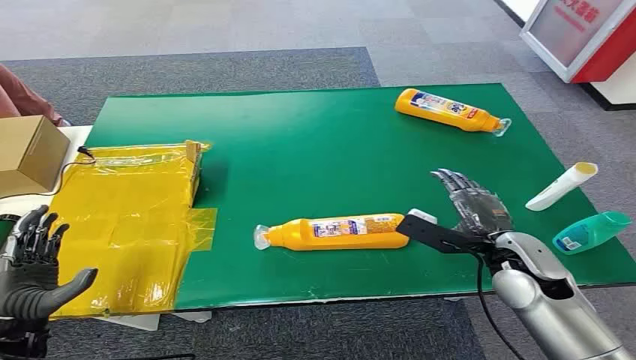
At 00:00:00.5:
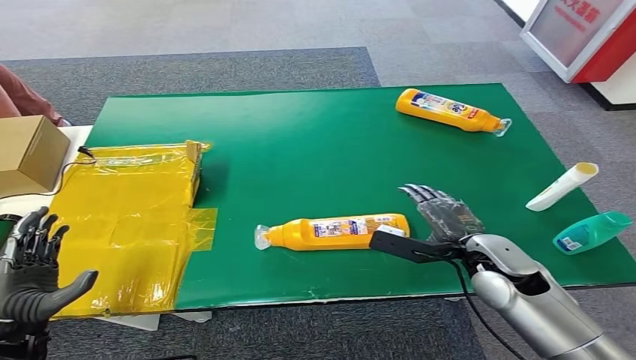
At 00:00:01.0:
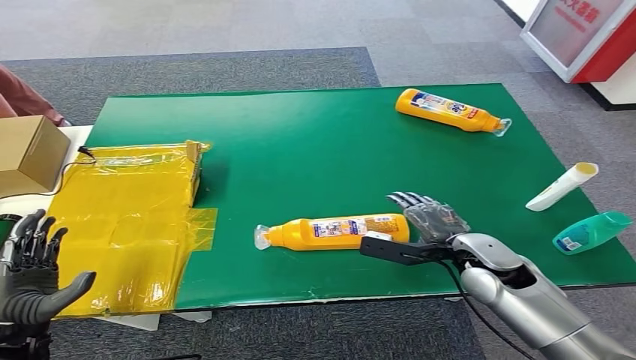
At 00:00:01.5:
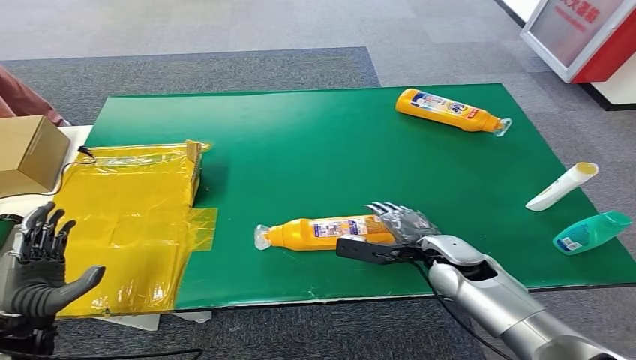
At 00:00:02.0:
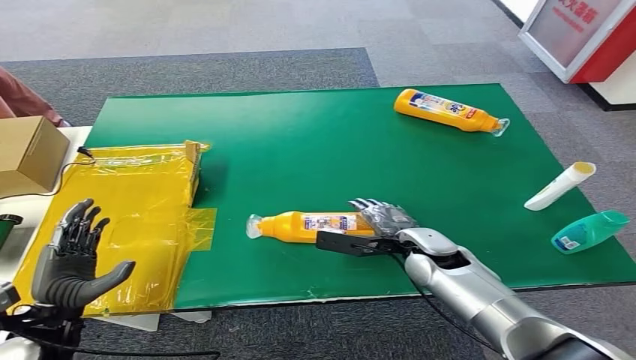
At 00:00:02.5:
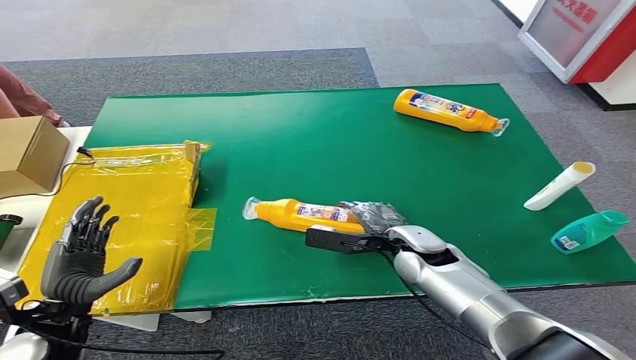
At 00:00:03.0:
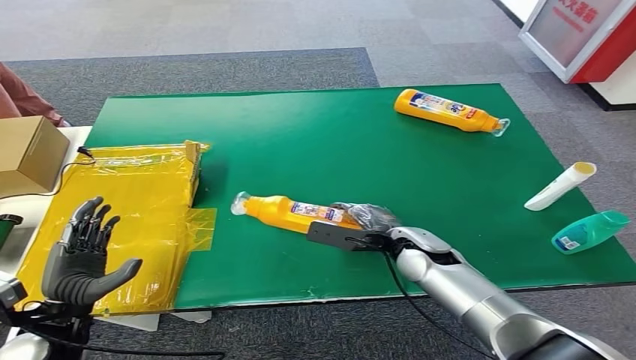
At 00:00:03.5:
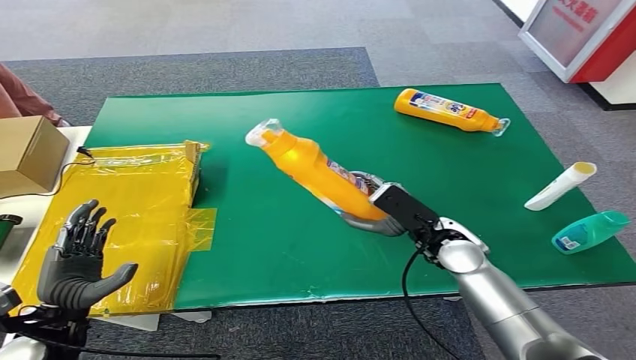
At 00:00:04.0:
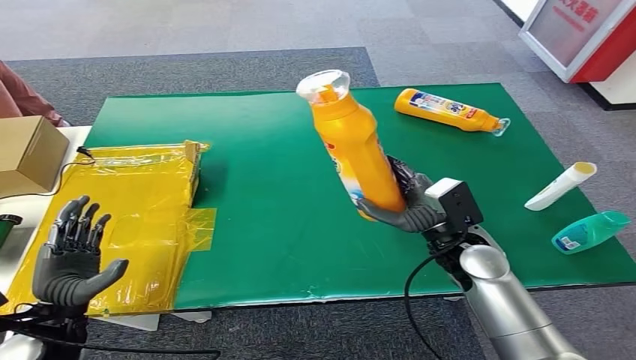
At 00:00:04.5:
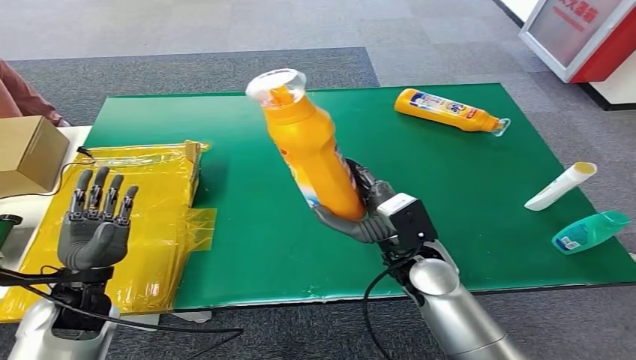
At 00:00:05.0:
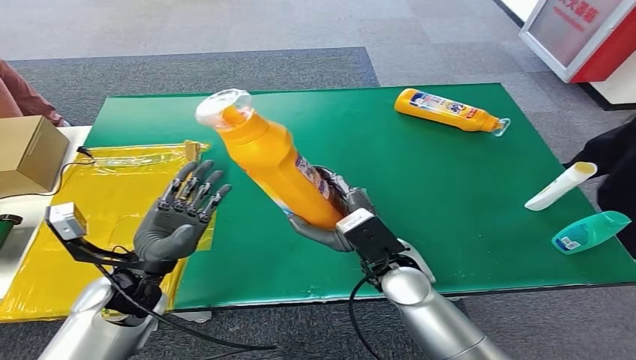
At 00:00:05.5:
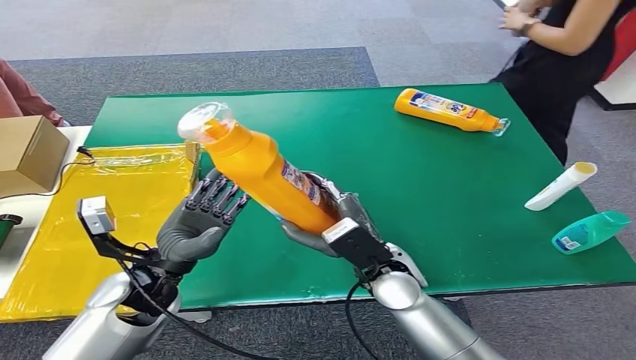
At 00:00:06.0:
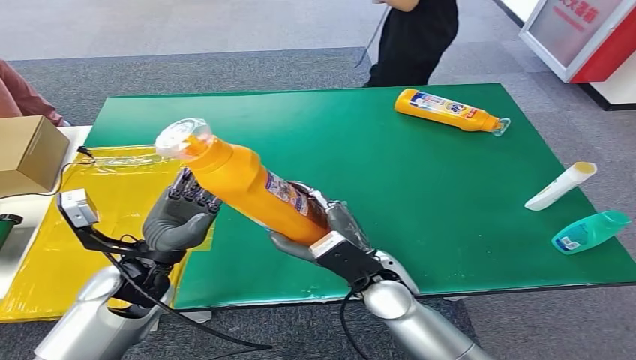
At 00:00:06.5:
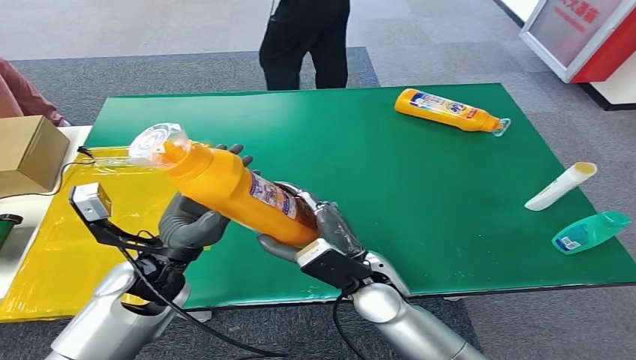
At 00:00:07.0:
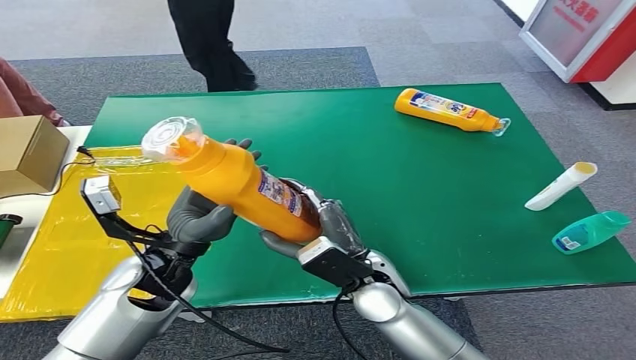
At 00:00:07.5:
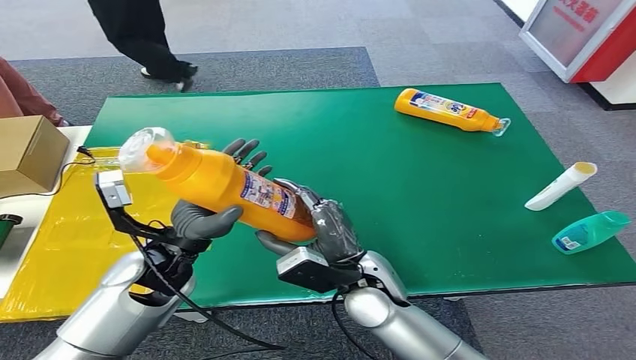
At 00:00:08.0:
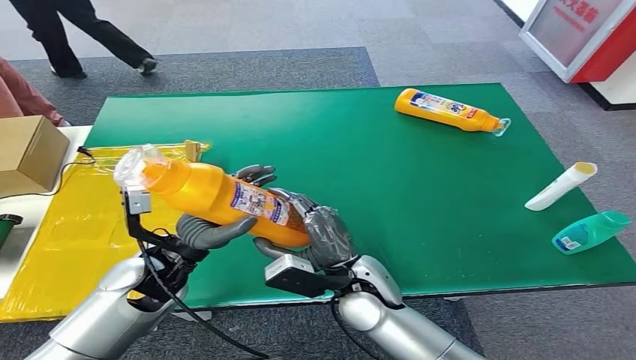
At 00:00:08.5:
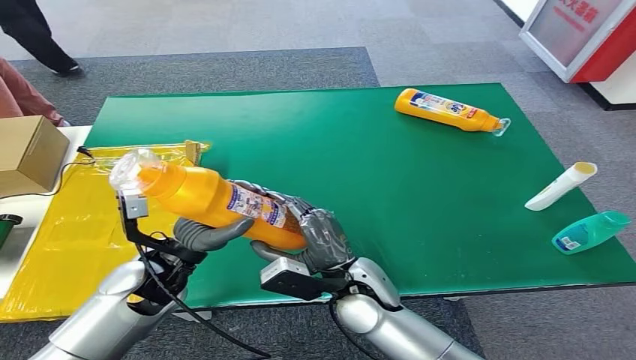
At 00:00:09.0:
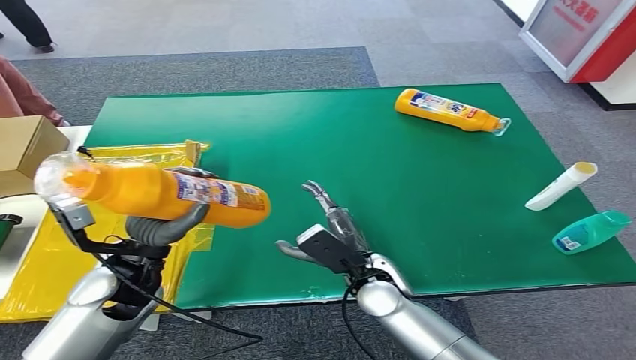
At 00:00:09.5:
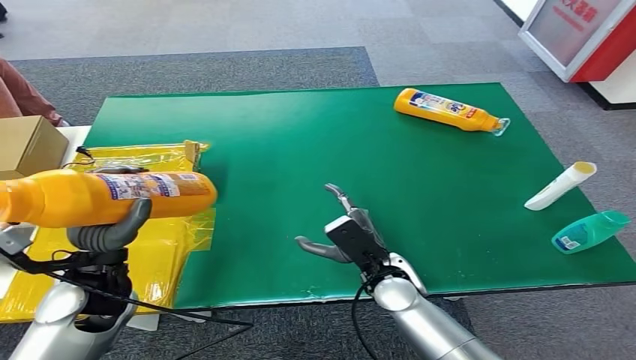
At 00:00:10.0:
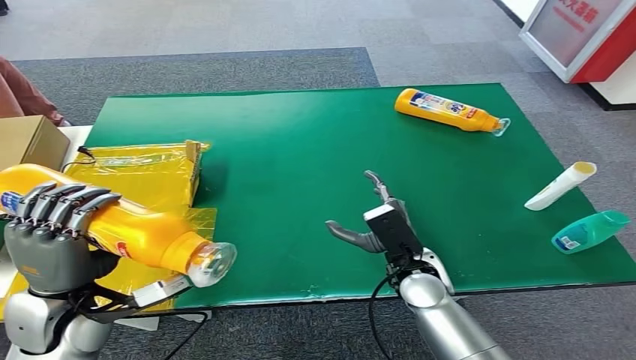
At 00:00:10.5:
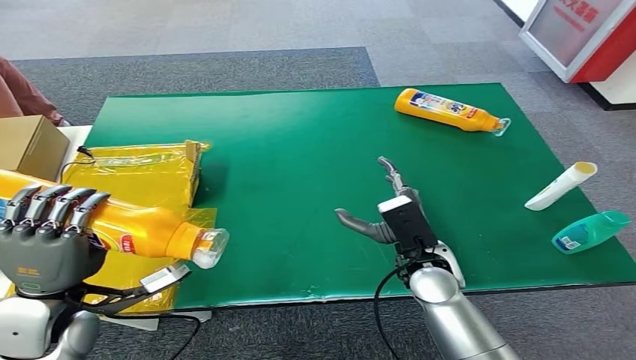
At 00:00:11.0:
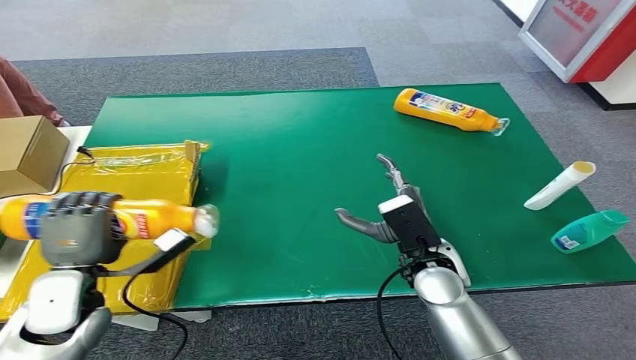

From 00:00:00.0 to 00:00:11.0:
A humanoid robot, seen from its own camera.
Step, from 00:00:00.0 to 00:00:03.5: Pick up the bottle from the table.

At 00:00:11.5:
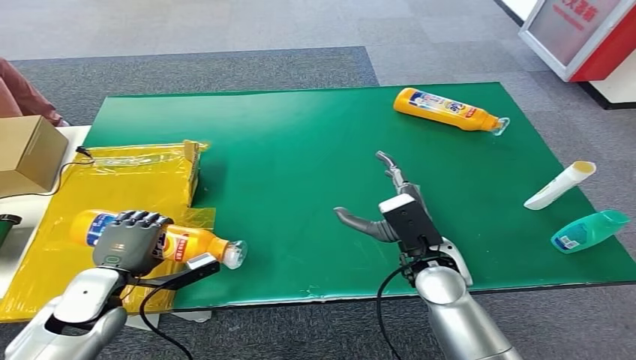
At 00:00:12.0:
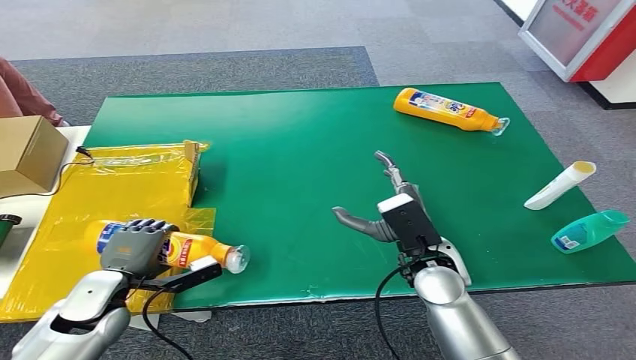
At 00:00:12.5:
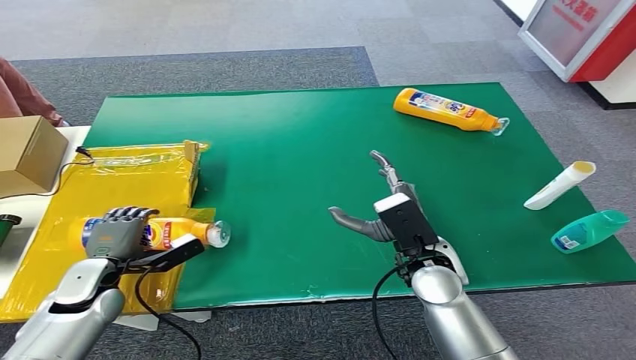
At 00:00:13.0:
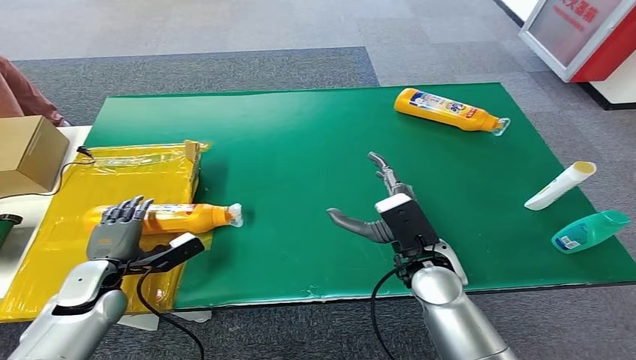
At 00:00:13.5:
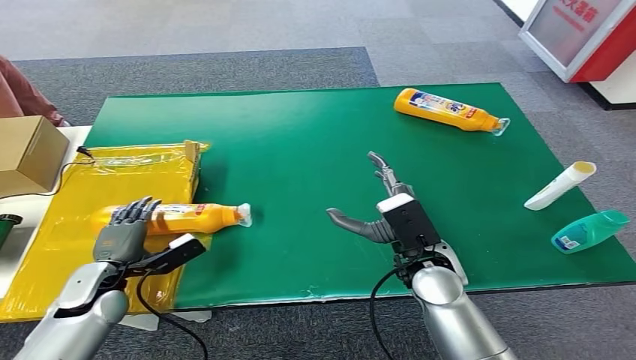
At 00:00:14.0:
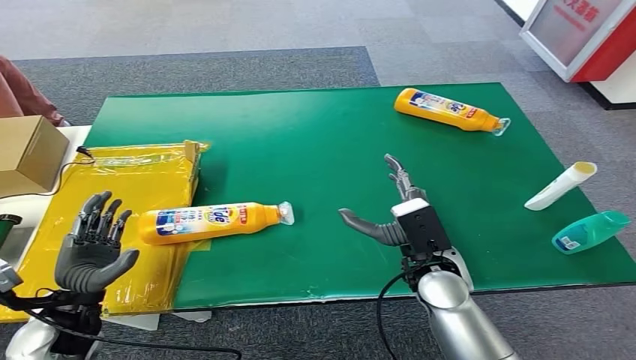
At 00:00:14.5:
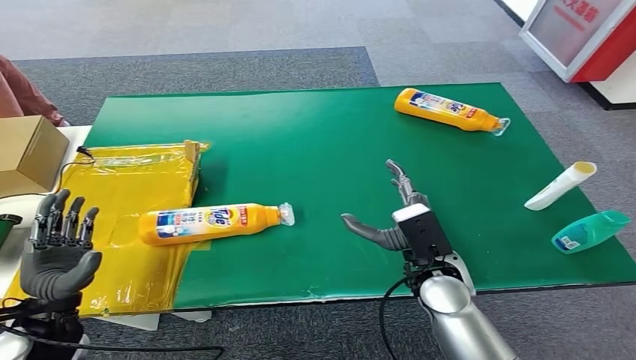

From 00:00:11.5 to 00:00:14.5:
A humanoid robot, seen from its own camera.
Step, from 00:00:11.5 to 00:00:14.0: Turn the bottle to the front side.
From 00:00:11.5 to 00:00:13.0: The left hand shifts by some 5 cm.
From 00:00:13.0 to 00:00:14.5: The left hand shifts approximately 10 cm backward and upward.
